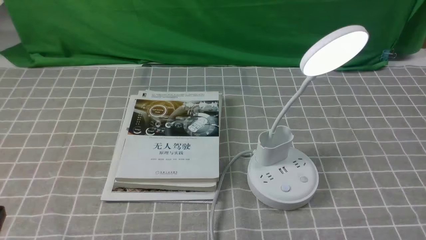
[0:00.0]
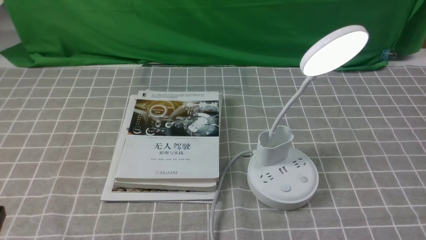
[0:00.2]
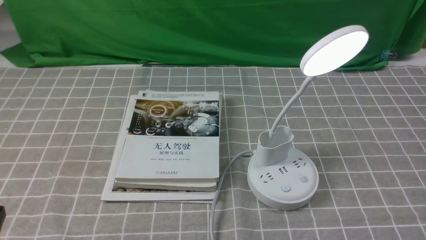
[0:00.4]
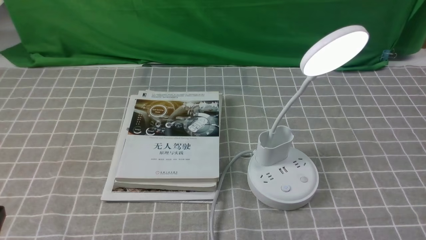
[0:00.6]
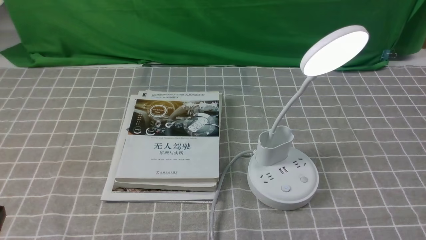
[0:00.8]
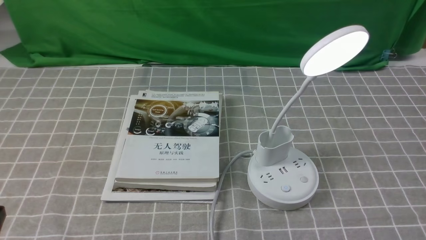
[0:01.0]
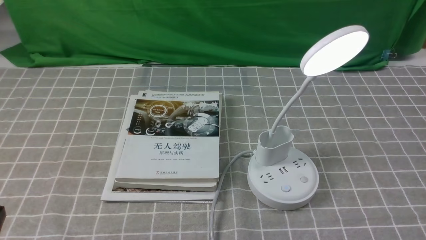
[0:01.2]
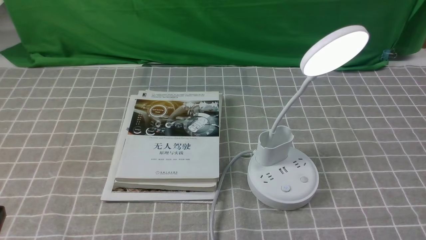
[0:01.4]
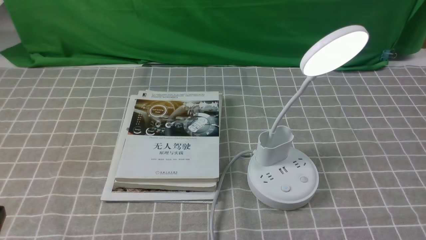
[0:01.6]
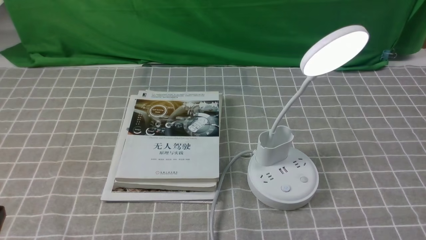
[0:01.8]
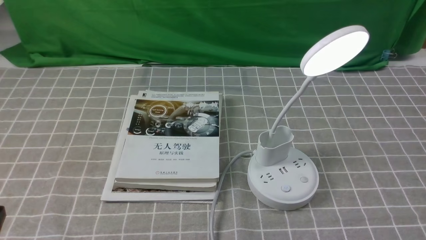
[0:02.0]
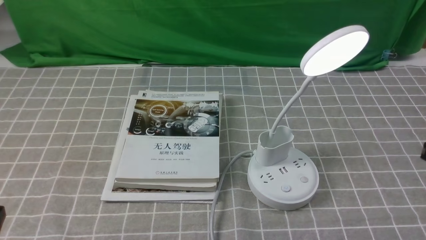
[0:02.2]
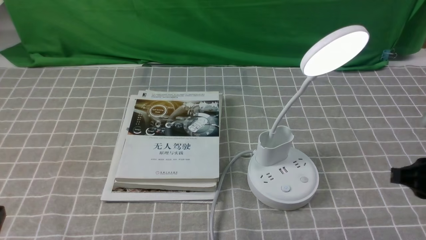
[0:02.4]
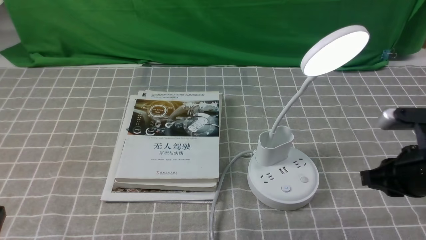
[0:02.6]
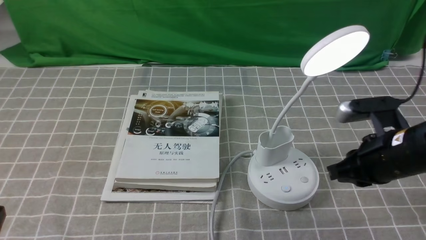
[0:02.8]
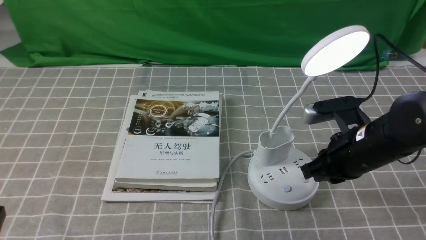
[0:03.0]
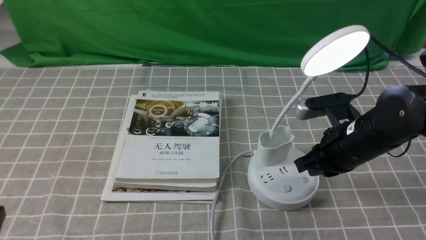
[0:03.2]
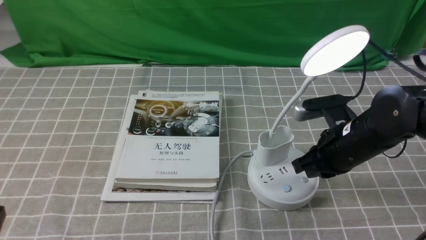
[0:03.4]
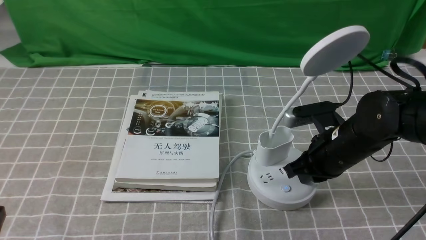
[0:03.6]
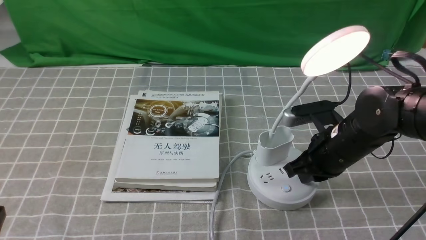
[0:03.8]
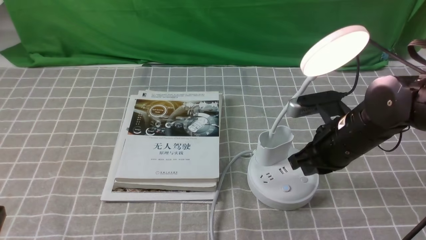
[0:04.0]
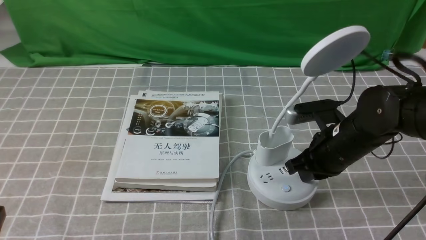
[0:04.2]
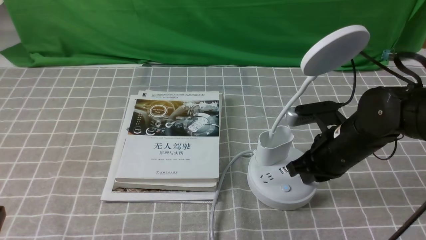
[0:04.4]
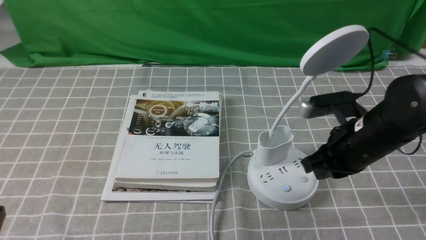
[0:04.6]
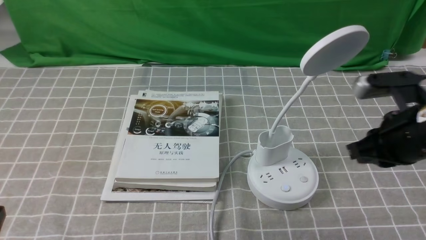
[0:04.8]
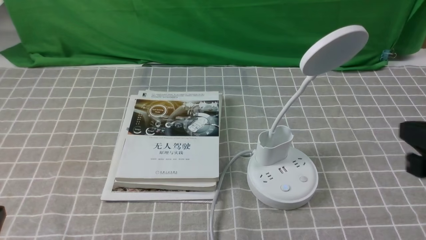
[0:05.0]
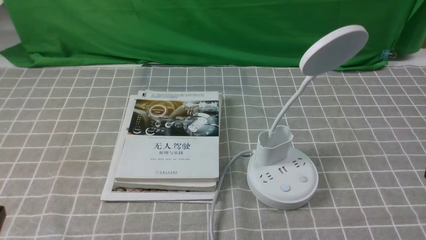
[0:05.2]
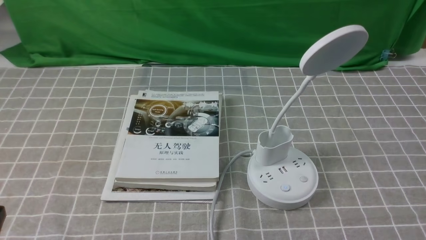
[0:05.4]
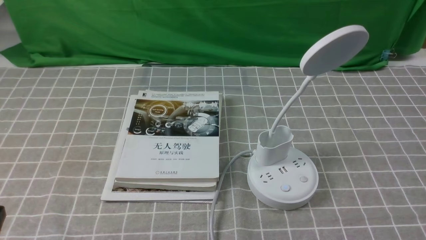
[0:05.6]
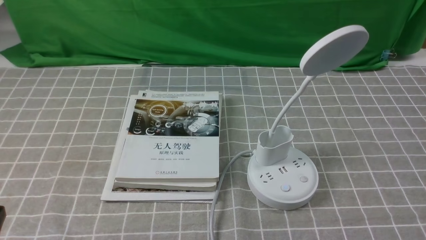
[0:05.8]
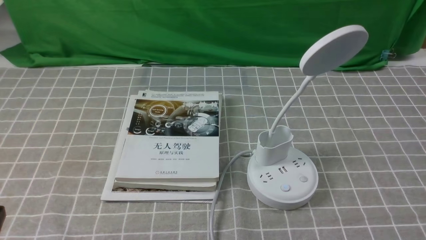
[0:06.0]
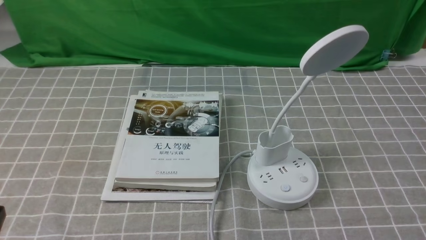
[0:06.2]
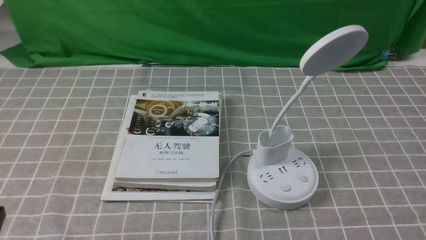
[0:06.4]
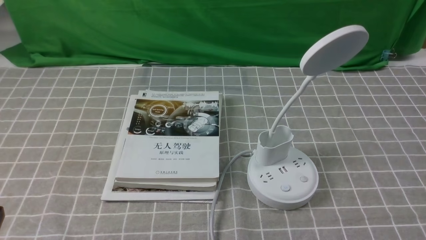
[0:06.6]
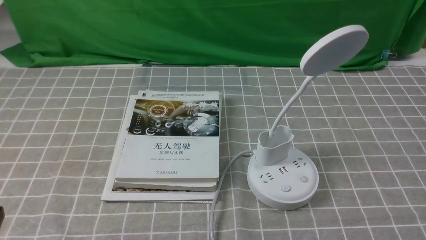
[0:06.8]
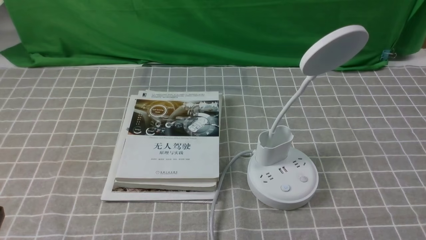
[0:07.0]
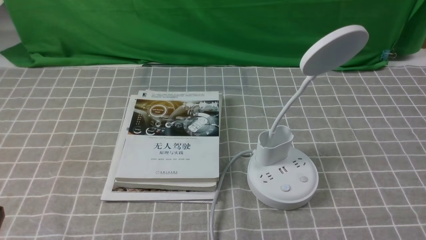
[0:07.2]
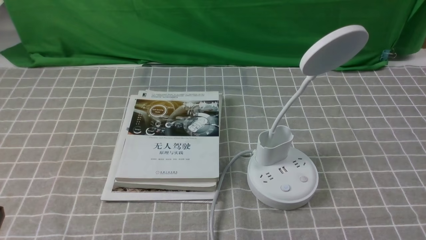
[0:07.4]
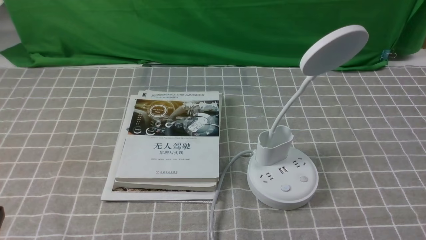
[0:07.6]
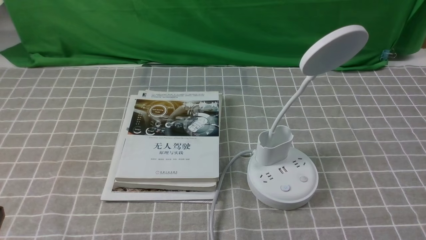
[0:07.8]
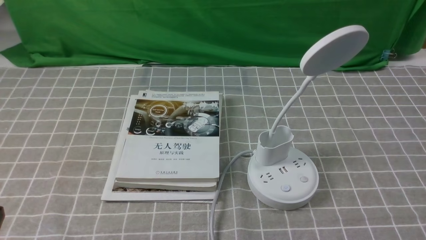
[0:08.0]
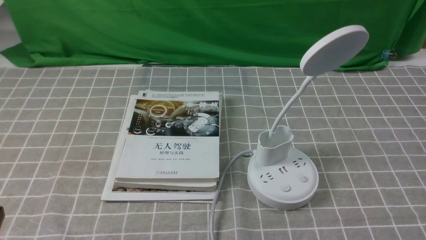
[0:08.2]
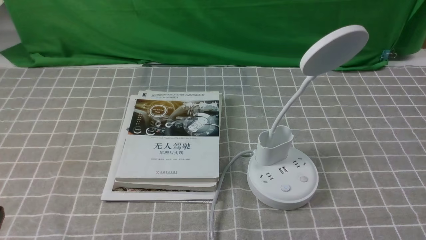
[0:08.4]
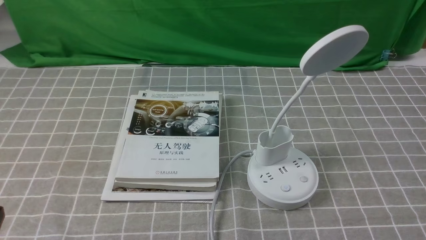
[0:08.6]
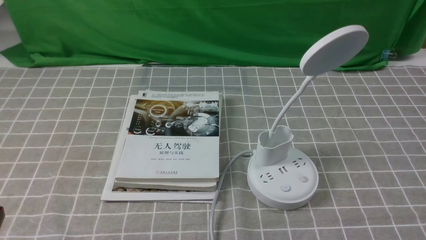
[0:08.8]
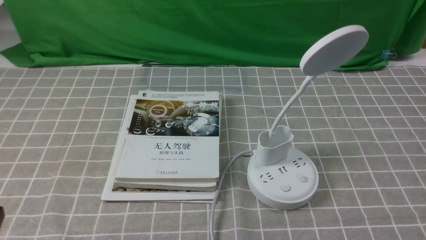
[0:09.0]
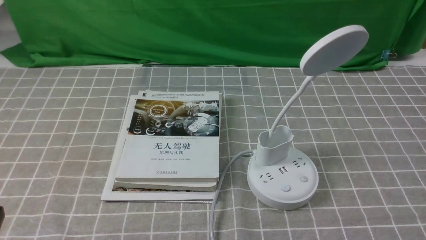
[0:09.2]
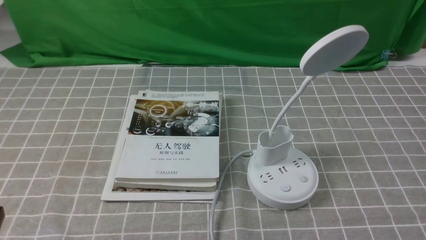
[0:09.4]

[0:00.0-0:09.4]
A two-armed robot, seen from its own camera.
Task of the whole recording: turn off the desk lamp on the grey coffee tablecloth by hand.
Step, 0:00.0 to 0:04.4: use the right arm to press the button switch on the lamp holder.
0:01.6 to 0:03.2: The right gripper is displaced forward, to the left and downward by roughly 30 cm, and opens and closes again.
0:03.2 to 0:04.8: The right gripper goes approximately 10 cm upward, backward and to the right.
0:04.8 to 0:06.2: The right gripper travels backward and to the right by roughly 20 cm.
0:07.8 to 0:09.4: The two grippers keep their place.

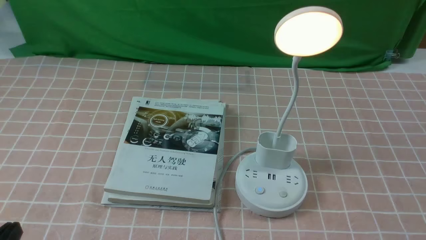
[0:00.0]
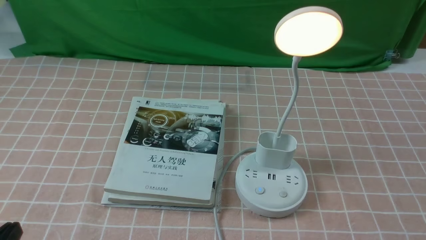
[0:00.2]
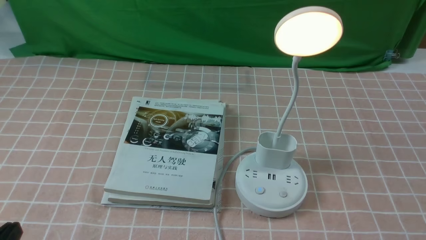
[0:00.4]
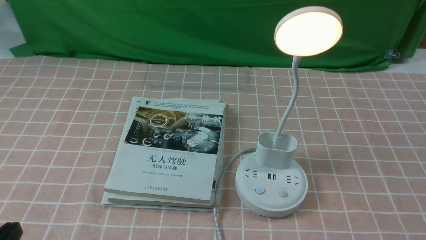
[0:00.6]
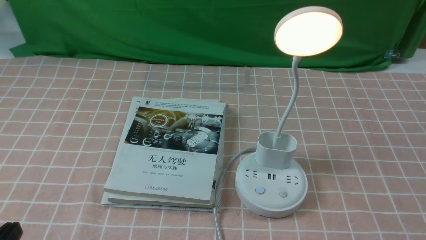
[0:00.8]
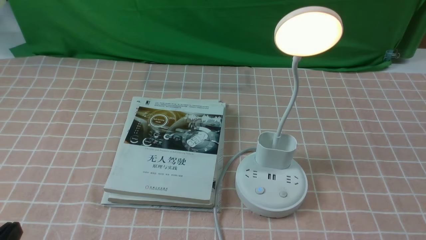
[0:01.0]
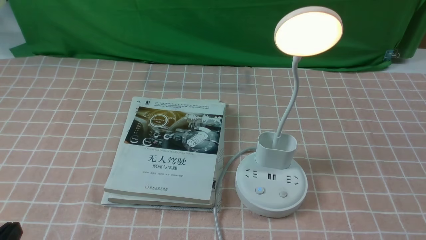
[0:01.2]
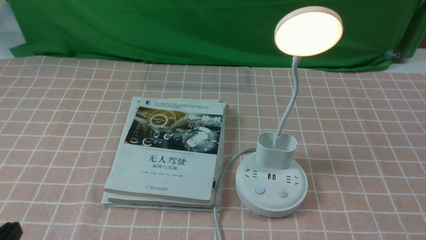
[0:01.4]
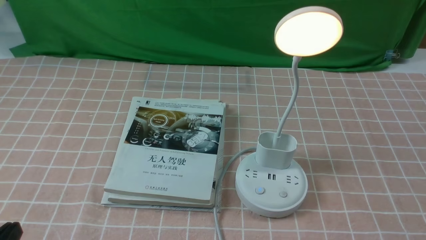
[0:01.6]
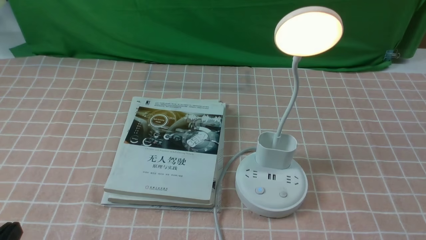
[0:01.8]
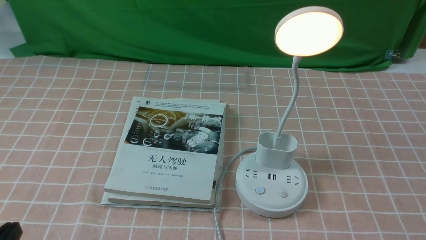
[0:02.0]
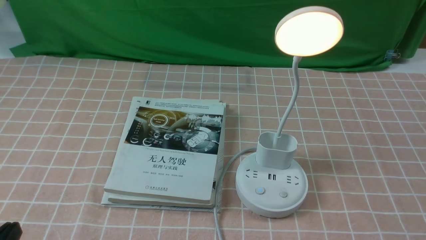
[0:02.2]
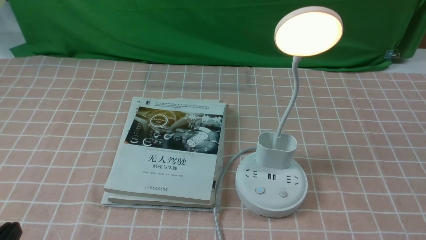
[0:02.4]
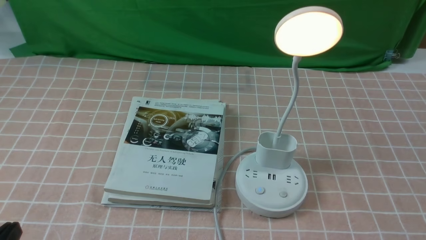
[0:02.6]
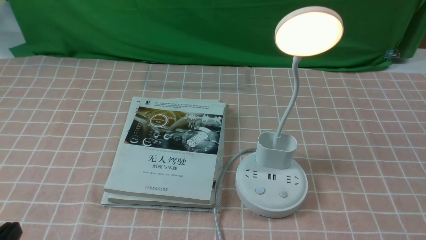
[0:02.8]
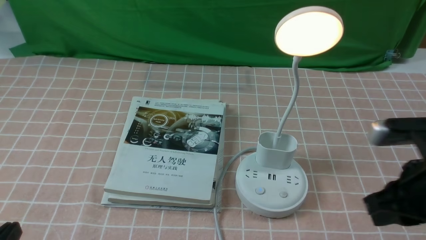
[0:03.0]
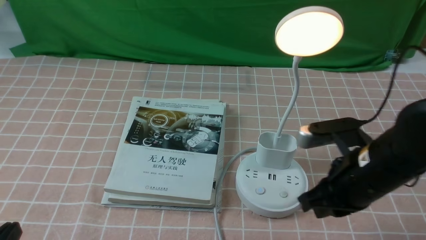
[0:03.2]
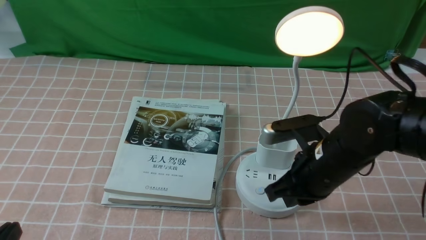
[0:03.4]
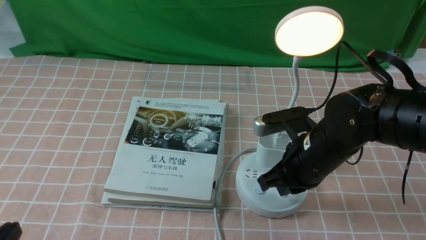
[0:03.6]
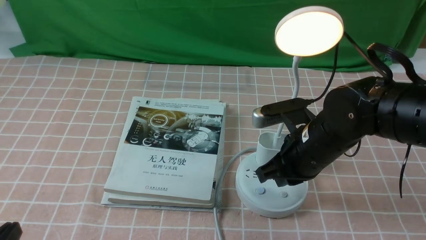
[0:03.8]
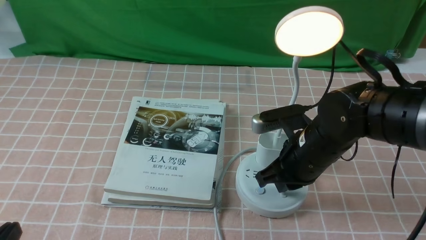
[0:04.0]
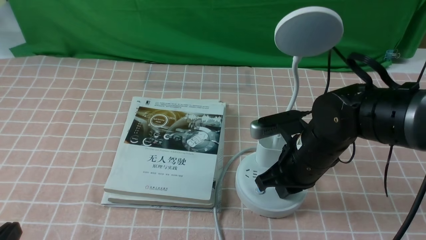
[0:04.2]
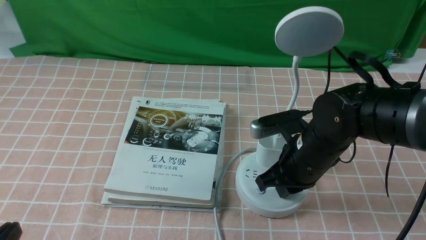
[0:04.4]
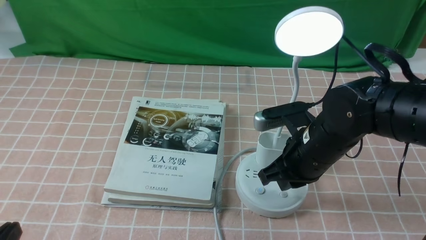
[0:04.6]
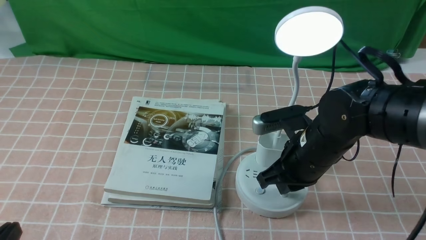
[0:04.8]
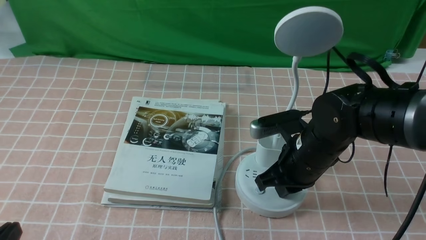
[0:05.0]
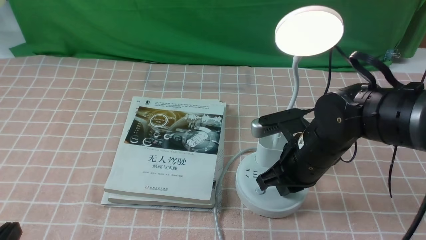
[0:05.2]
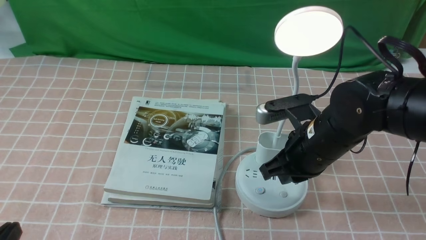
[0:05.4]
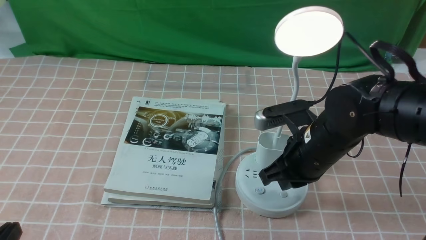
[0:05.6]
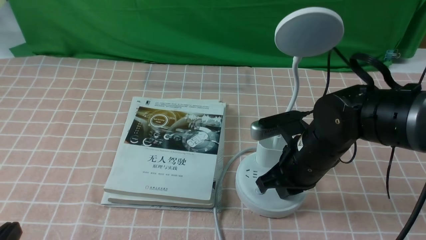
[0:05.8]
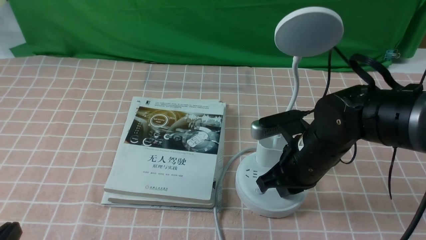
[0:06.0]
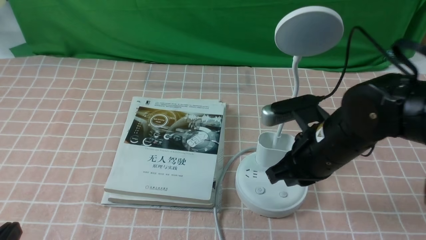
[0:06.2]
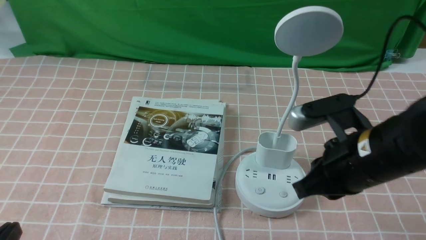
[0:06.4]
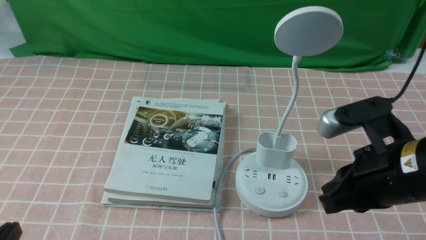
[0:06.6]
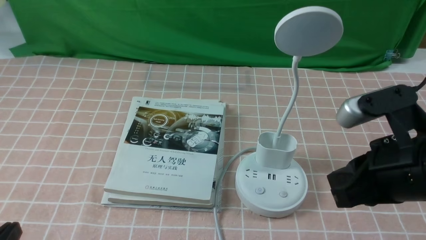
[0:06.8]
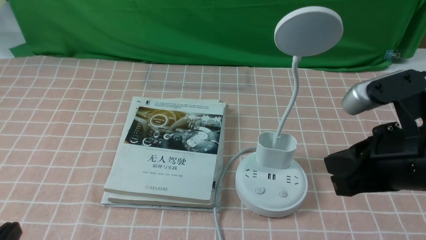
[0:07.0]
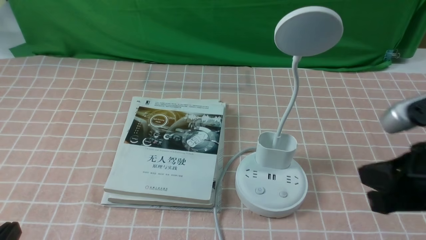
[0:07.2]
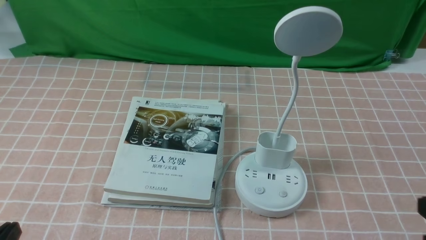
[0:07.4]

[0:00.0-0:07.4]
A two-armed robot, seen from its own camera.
Task of the whole recording: turn off the table lamp on the pink coffee tablecloth by hand.
Step, 0:00.0 to 0:06.0: use the right arm to press the button switch on the lamp holder.
0:00.0 to 0:01.4: Both grippers stay about where they are.
0:01.4 to 0:03.0: The right gripper goes approximately 20 cm forward, to the left and upward, and closes its fingers.
0:03.0 to 0:04.4: The right gripper shifts about 15 cm to the left, forward and downward.
0:04.4 to 0:06.0: The grippers stay close to where they were, moving slightly.
0:06.0 to 0:07.4: The right gripper heads backward and to the right, covering roughly 25 cm.
